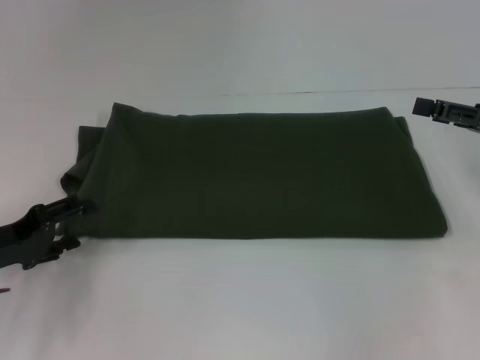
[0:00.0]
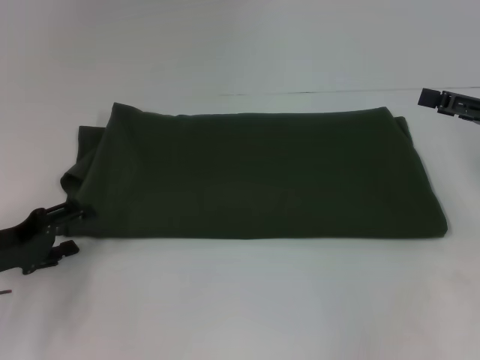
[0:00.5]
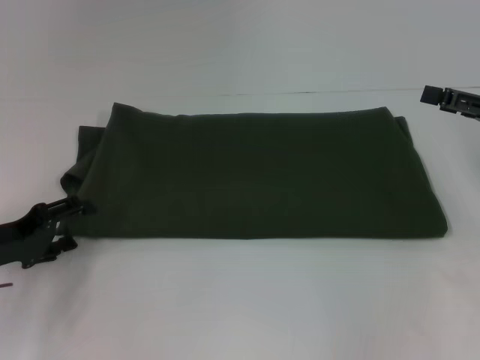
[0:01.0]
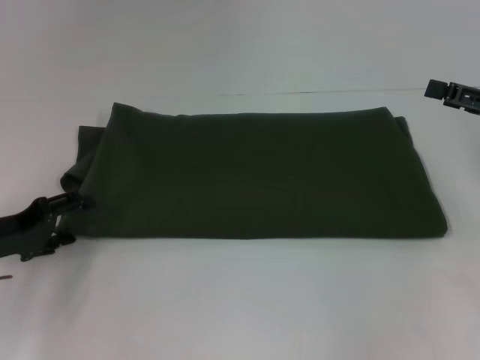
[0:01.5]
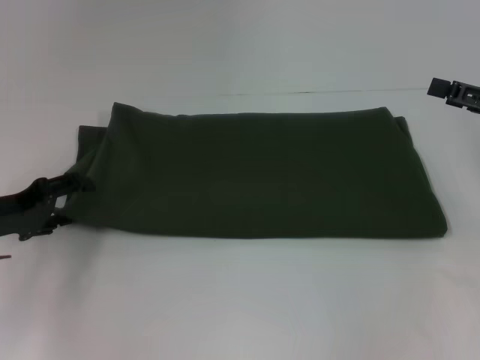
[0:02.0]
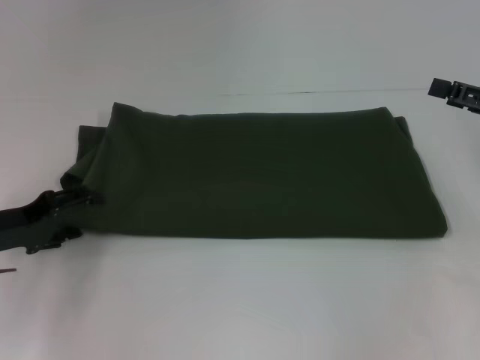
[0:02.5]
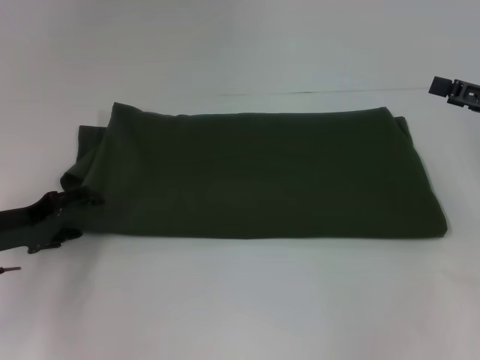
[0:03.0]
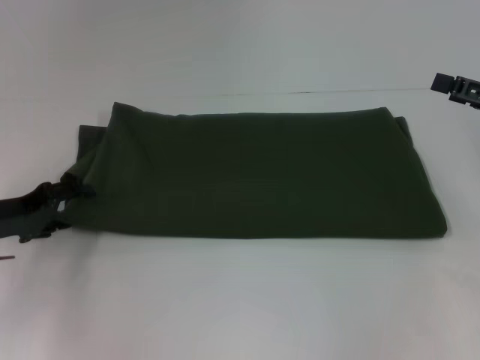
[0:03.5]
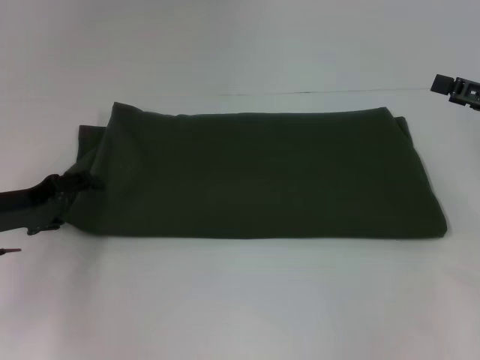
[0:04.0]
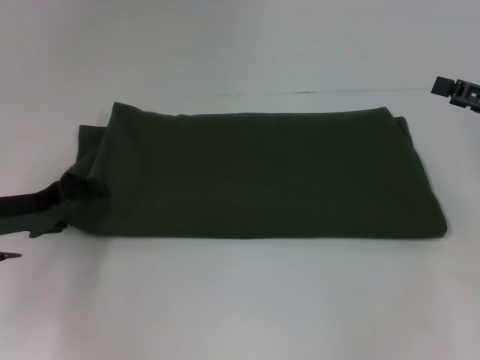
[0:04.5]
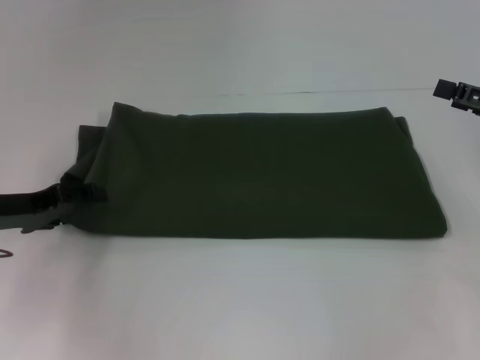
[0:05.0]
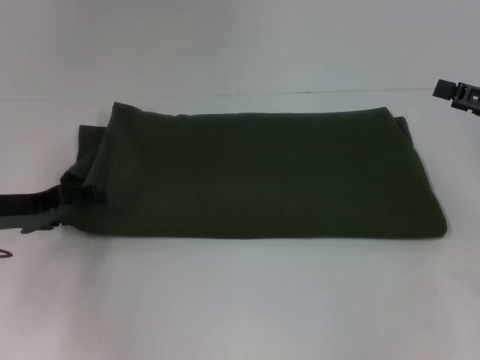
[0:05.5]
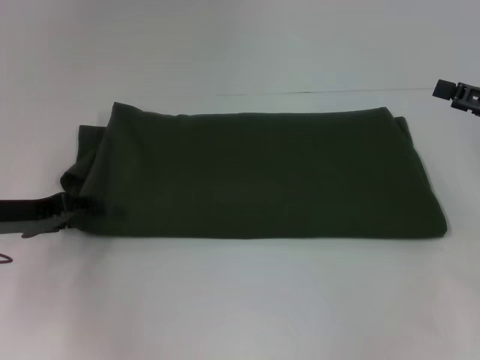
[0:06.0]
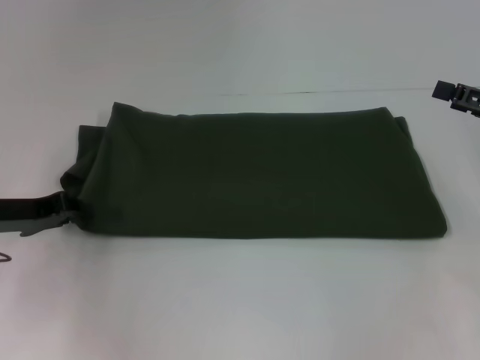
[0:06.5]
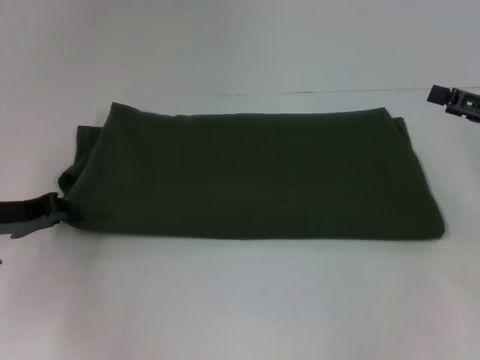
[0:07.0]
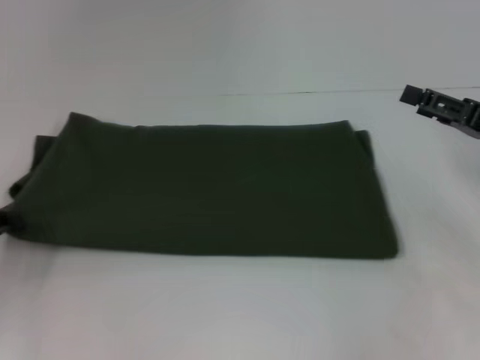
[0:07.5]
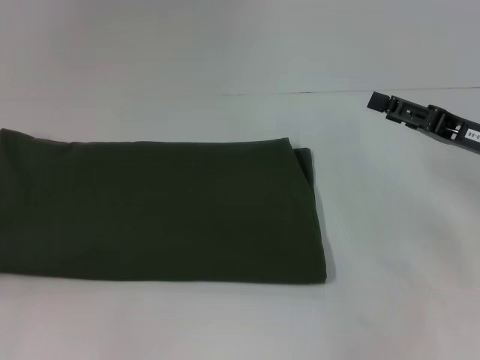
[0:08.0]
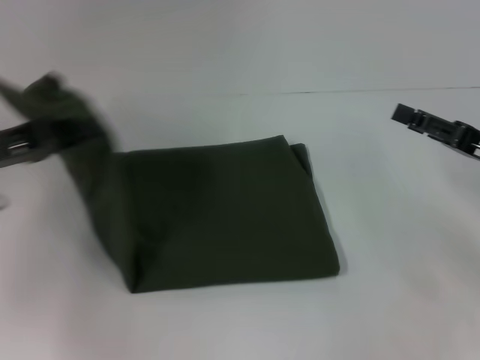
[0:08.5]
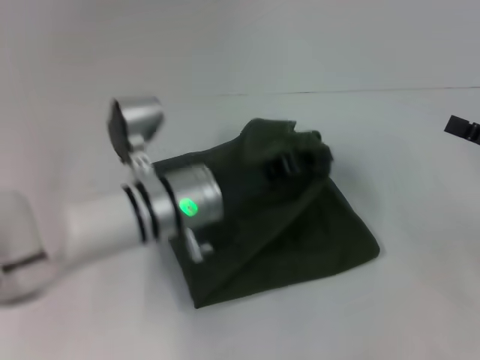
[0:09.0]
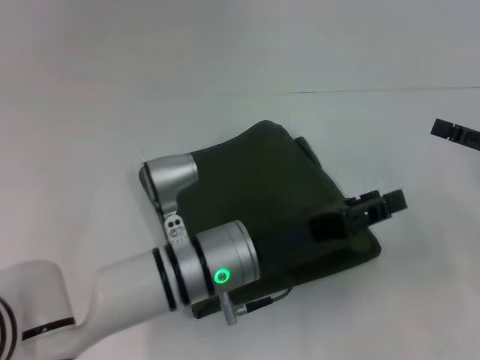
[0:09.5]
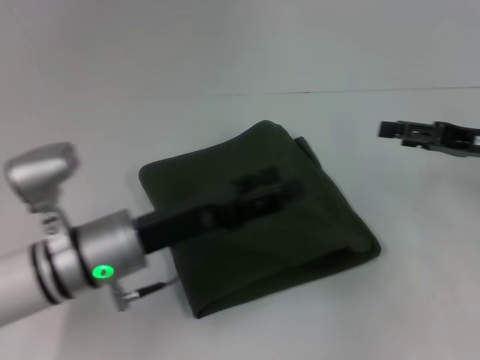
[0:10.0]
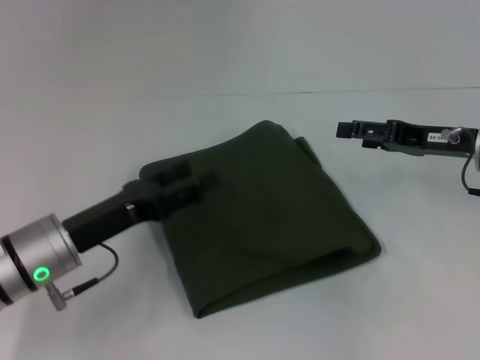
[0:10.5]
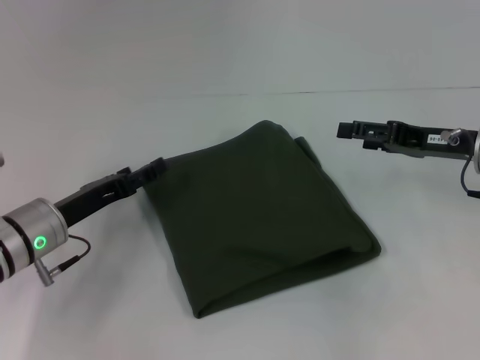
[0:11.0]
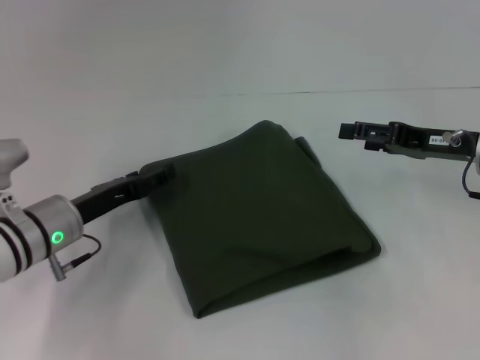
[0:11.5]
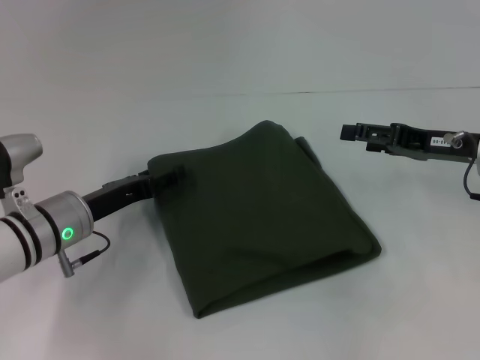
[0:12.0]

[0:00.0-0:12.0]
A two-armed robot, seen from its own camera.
Step, 0.0 to 9.5 s: Fold the clothes with your left hand.
0.0 to 4.0 s: The grippers make only small movements.
4.0 to 6.0 s: The grippers stay close to where they were, moving slightly.
6.0 to 8.0 s: The right gripper moves to the left, approximately 5 cm; the left gripper shifts roughly 15 cm to the left and backward, and closes up.
8.0 to 10.0 s: The left gripper shifts some 30 cm to the right, and opens its fingers.
10.0 to 12.0 s: The left gripper travels to the left and forward by approximately 10 cm.

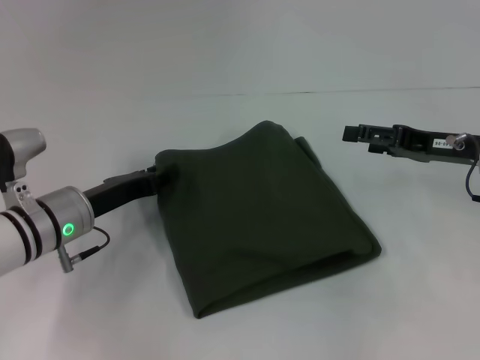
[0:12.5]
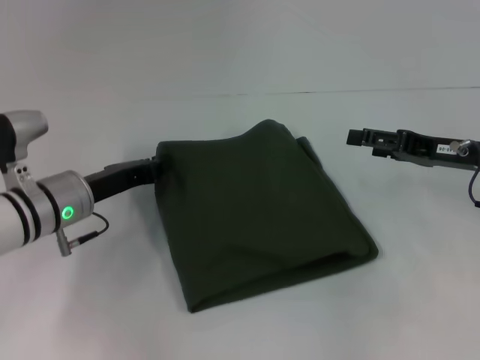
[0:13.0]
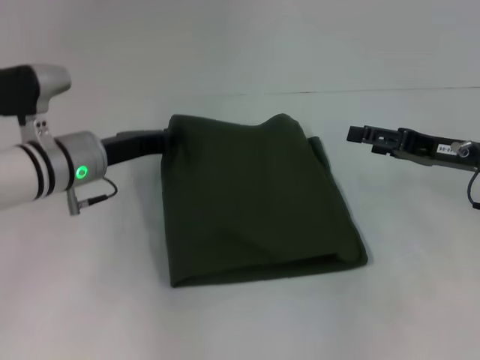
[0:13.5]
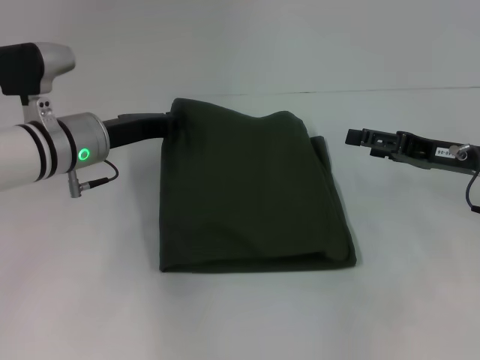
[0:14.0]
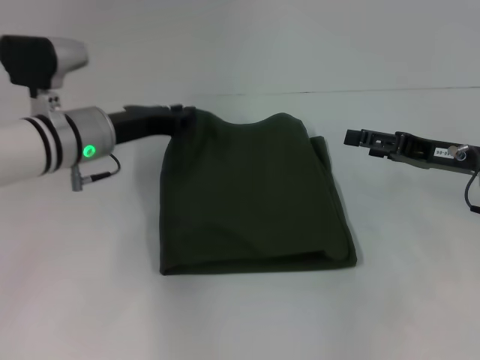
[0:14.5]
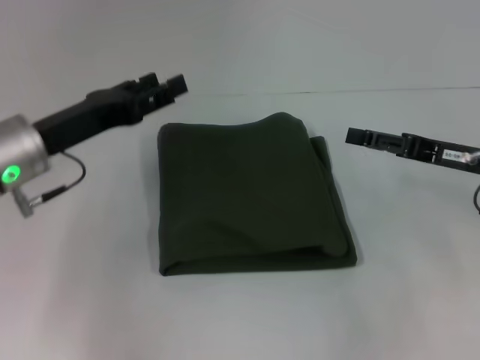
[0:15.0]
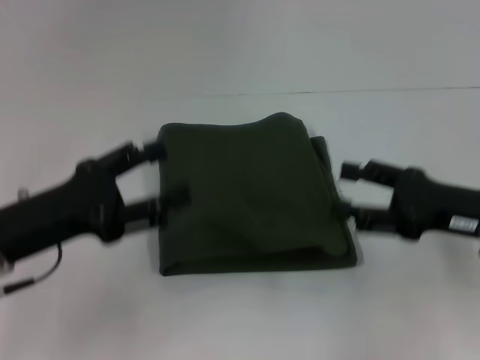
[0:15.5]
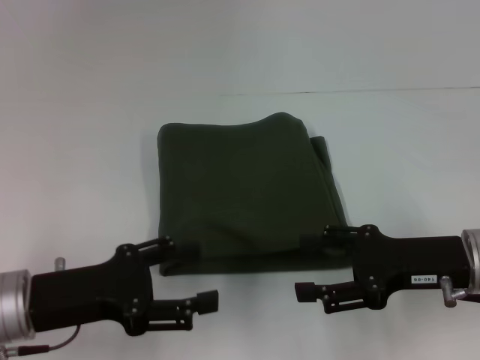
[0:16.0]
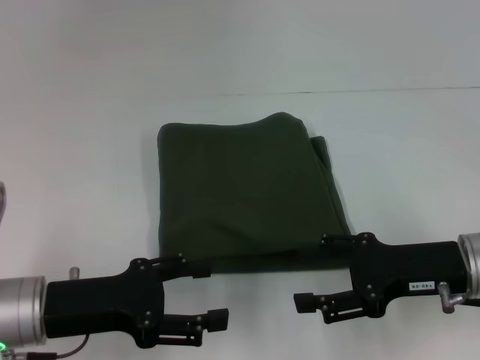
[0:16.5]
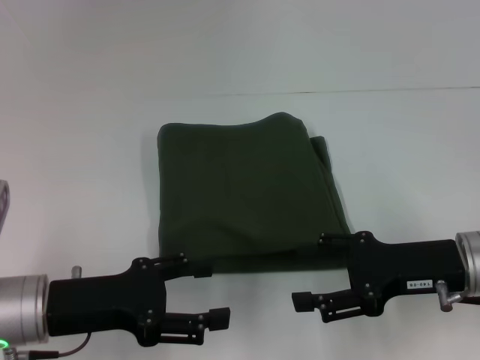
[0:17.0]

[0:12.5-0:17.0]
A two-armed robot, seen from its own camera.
12.5 to 14.5 s: The left gripper goes about 10 cm upward and forward, and closes its fingers.
14.5 to 17.0 s: The left gripper shifts some 15 cm backward, and opens its fingers; the right gripper goes some 10 cm backward.

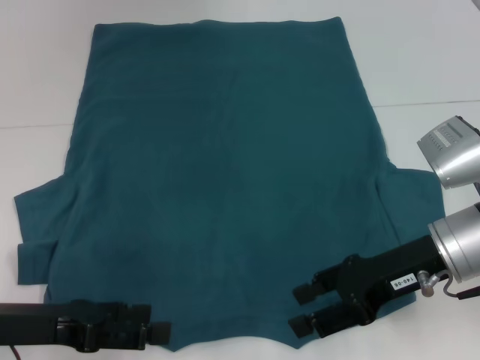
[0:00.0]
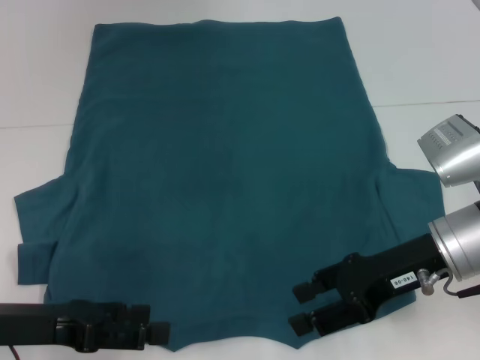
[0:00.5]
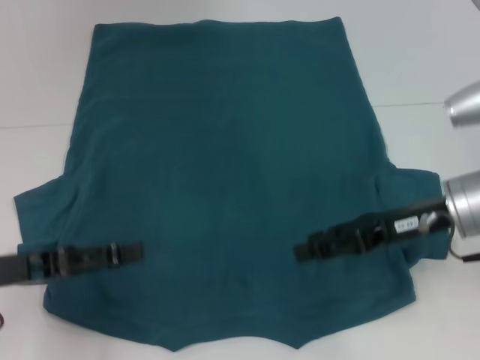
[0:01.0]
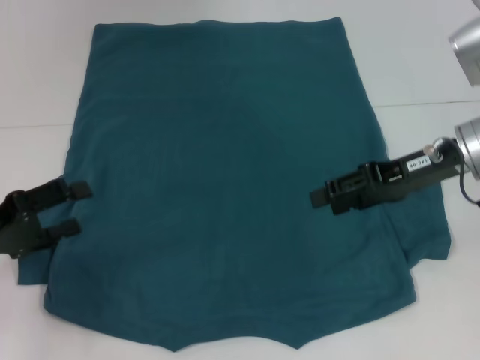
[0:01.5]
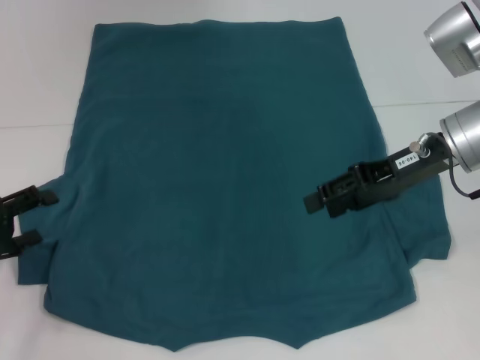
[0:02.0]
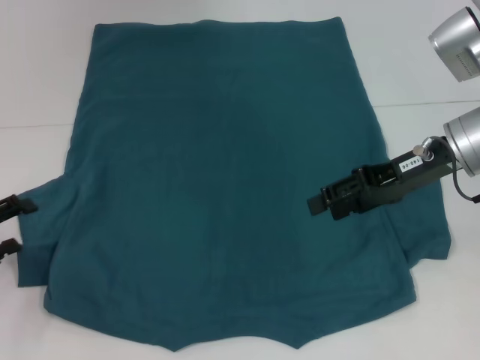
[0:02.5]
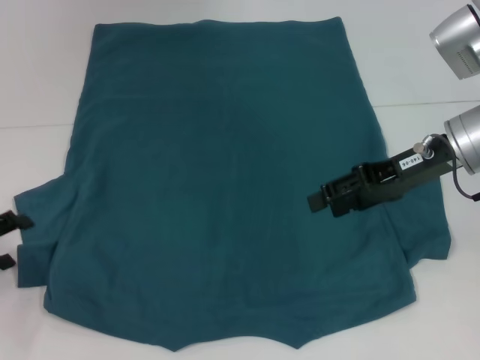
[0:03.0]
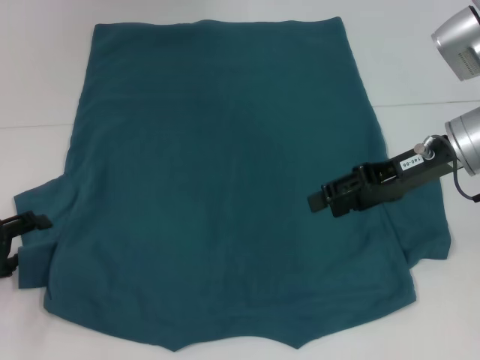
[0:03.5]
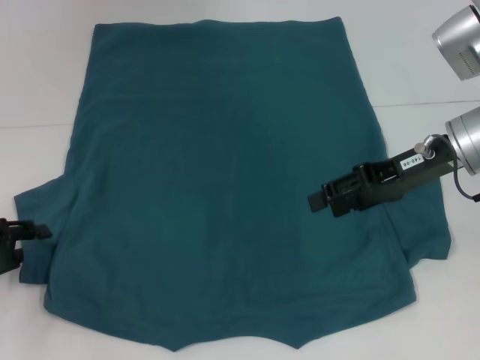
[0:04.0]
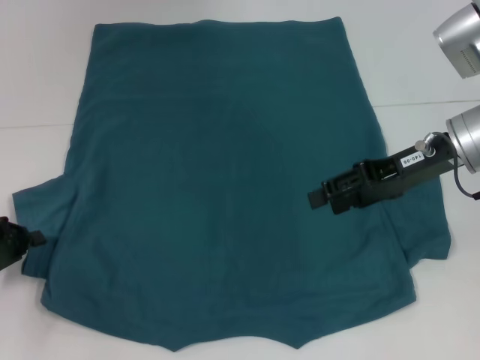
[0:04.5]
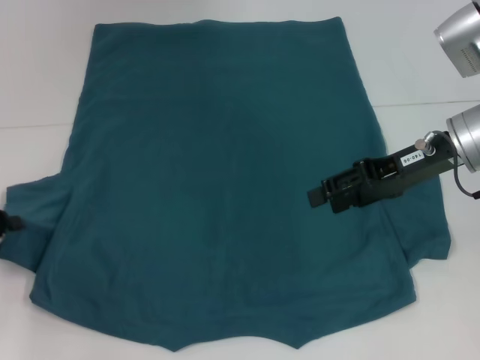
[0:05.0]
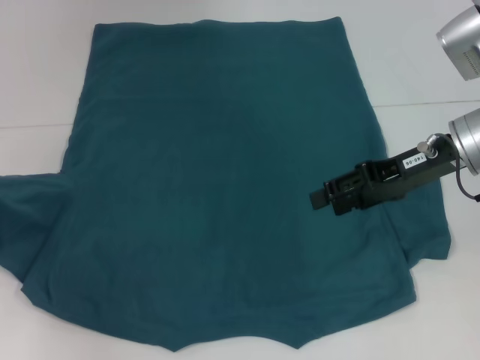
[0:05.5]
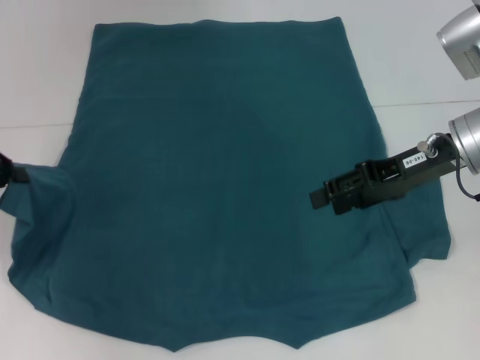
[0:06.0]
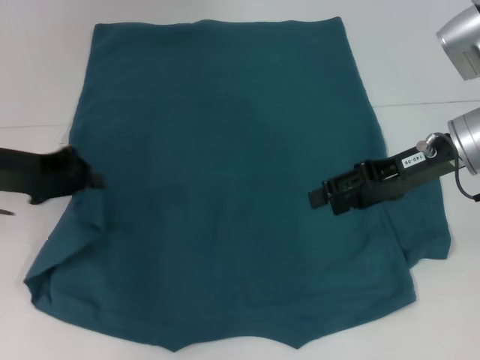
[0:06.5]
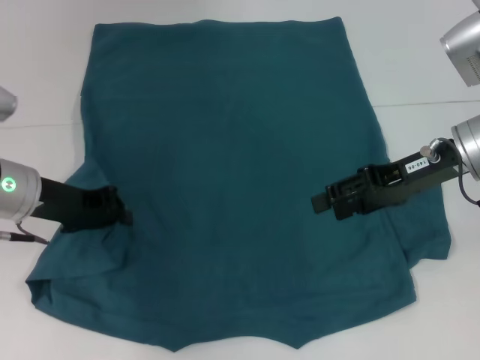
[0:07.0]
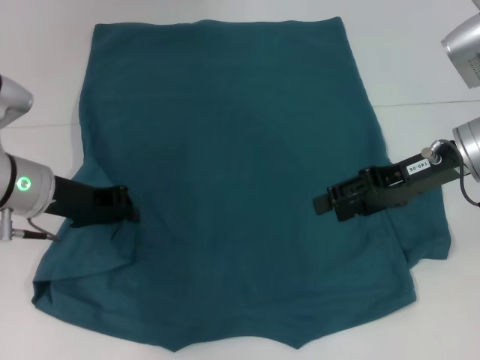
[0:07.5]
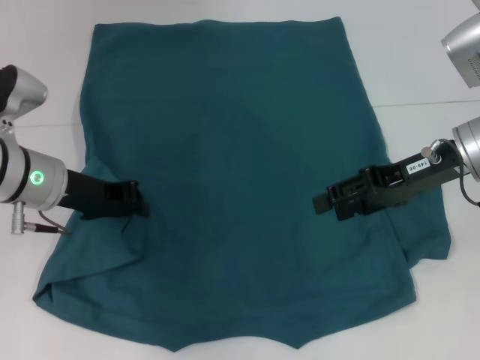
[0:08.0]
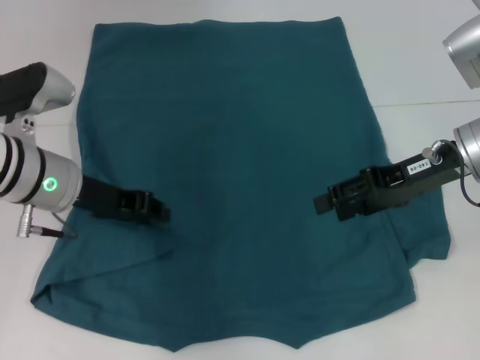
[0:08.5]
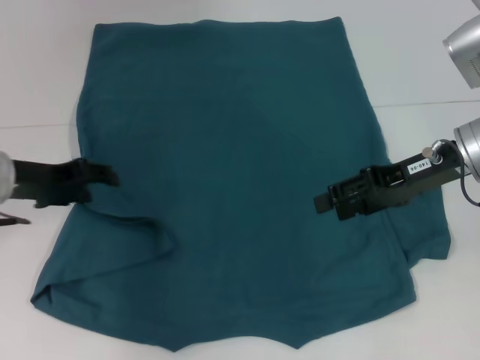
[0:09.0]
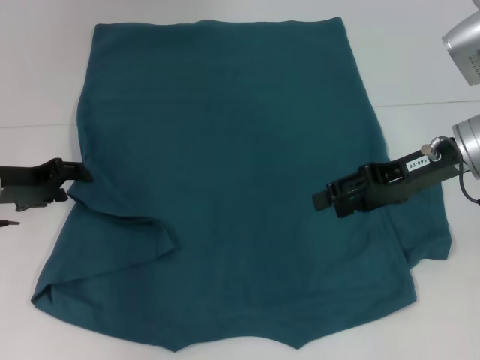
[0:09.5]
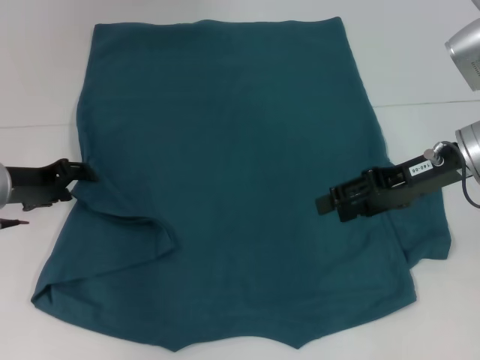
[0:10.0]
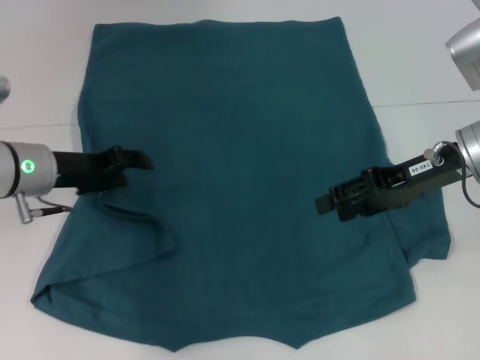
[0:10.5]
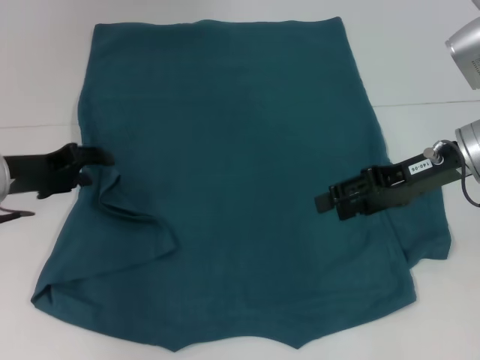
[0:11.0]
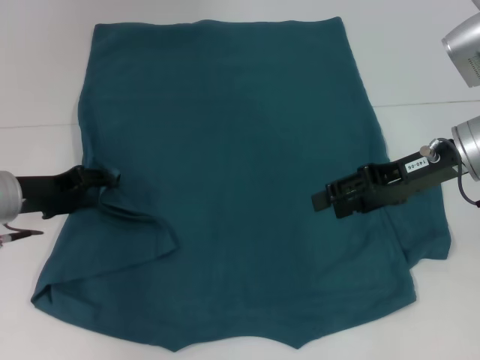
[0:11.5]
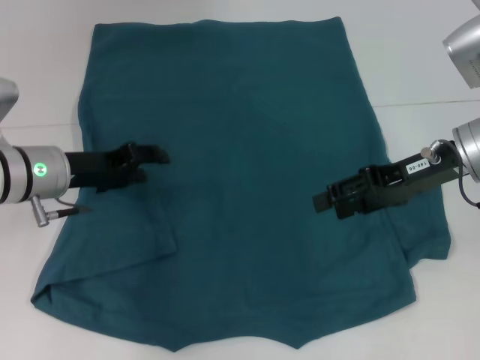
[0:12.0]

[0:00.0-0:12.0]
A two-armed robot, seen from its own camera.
0.0 to 2.0 s: The left gripper heads to the left, covering approximately 10 cm, while the right gripper is displaced forward and upward by roughly 10 cm.
2.0 to 4.0 s: The grippers make only small movements.
4.0 to 6.0 s: The left gripper moves upward and forward, about 10 cm, and closes up.
6.0 to 8.0 s: The left gripper goes some 15 cm to the right.
8.0 to 10.0 s: The left gripper is displaced to the left by some 5 cm, and opens.
10.0 to 12.0 s: The left gripper goes left and right, about 5 cm each way, reversing 2 times.
